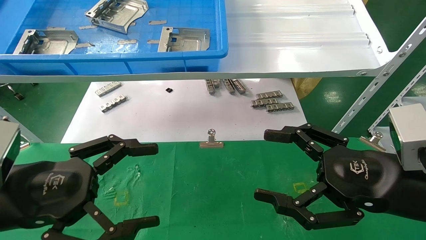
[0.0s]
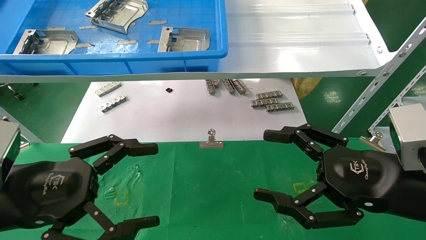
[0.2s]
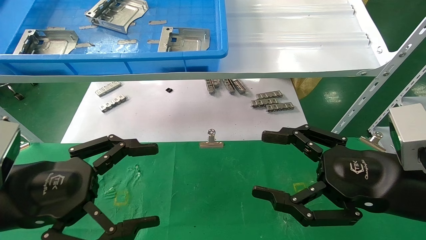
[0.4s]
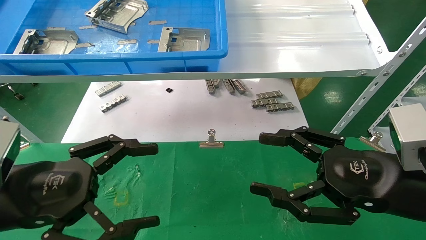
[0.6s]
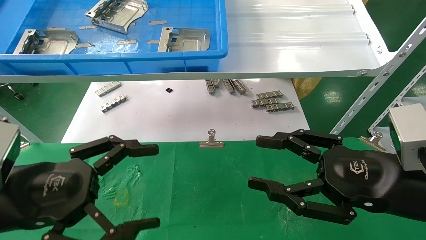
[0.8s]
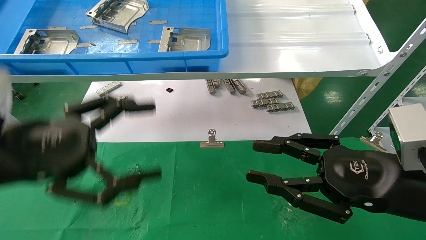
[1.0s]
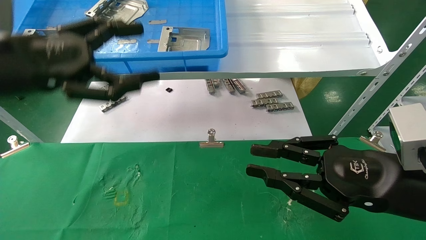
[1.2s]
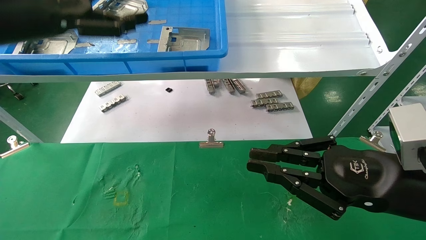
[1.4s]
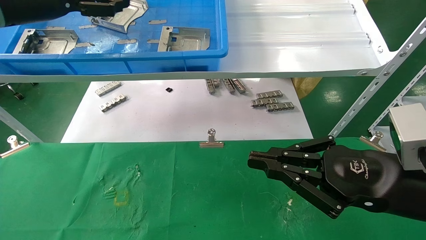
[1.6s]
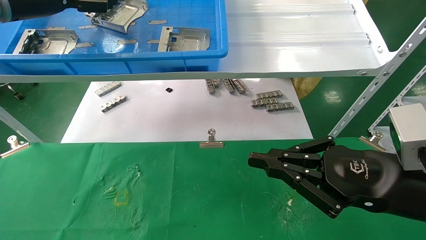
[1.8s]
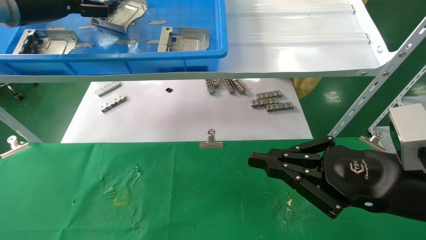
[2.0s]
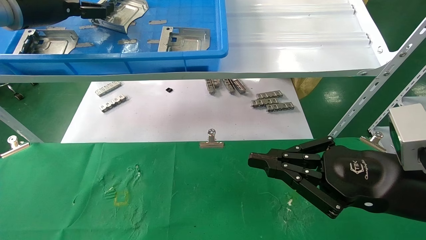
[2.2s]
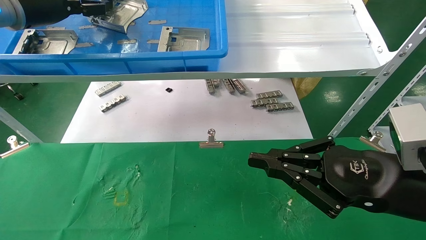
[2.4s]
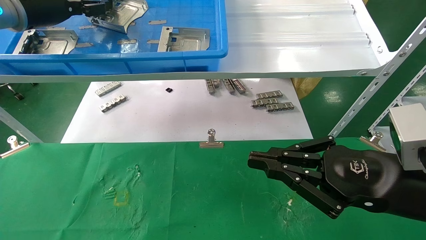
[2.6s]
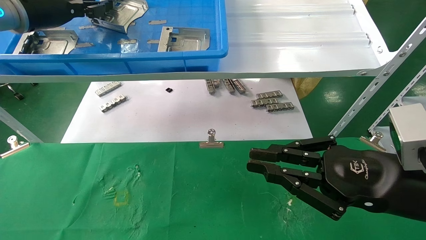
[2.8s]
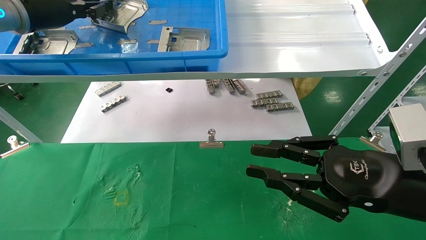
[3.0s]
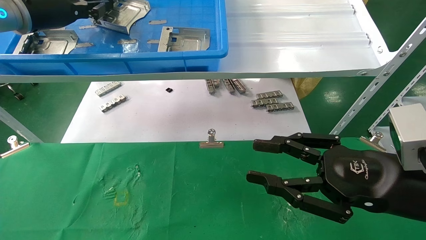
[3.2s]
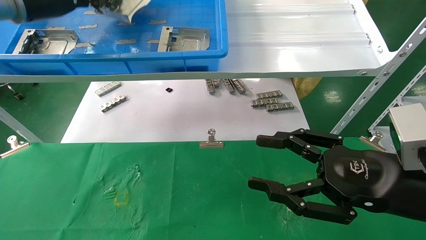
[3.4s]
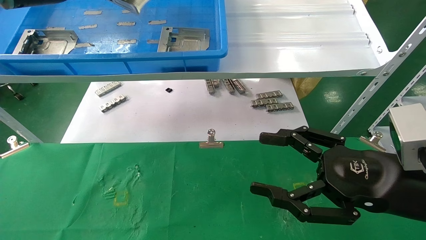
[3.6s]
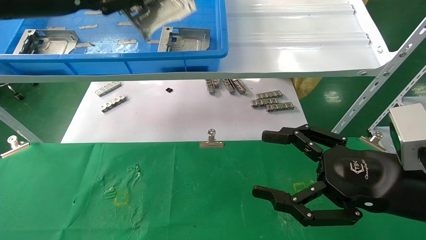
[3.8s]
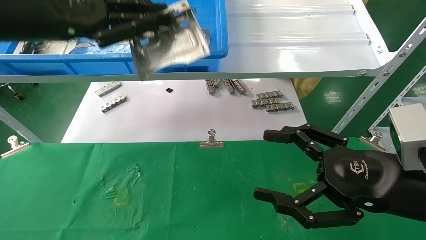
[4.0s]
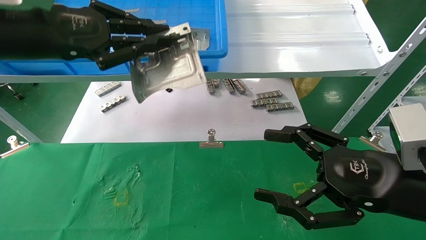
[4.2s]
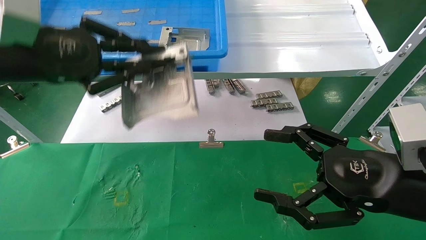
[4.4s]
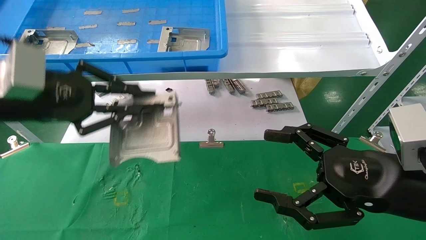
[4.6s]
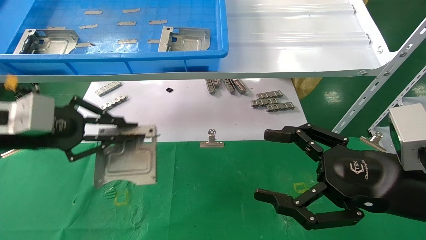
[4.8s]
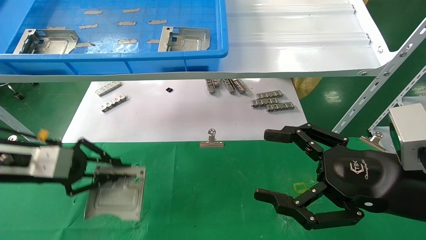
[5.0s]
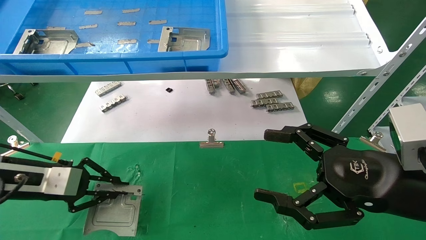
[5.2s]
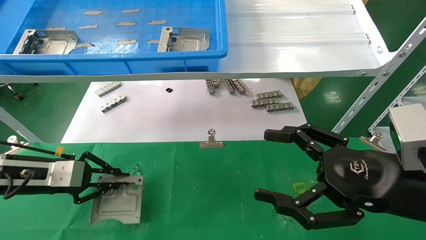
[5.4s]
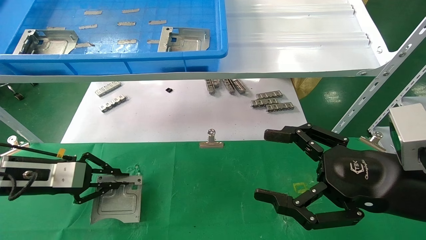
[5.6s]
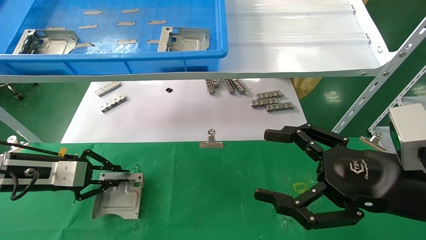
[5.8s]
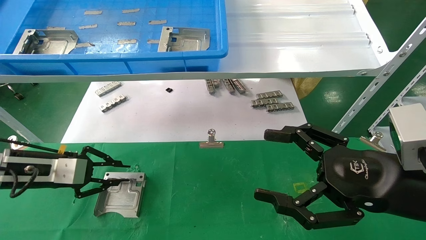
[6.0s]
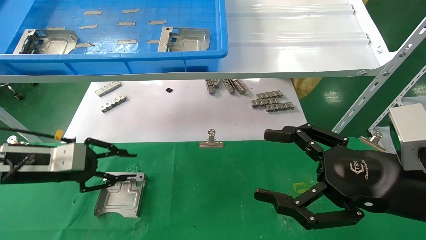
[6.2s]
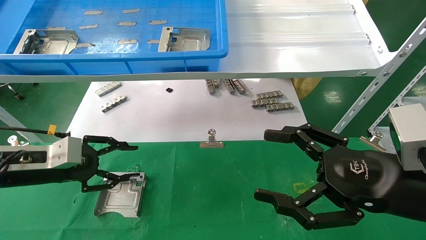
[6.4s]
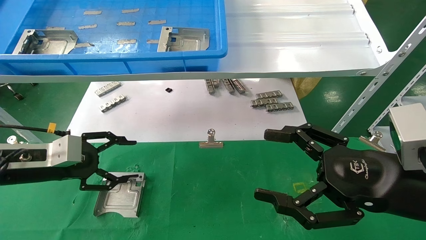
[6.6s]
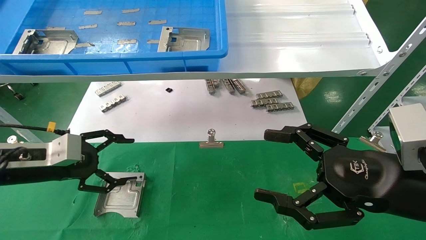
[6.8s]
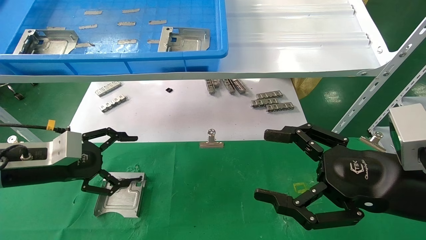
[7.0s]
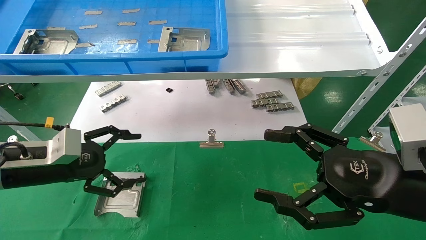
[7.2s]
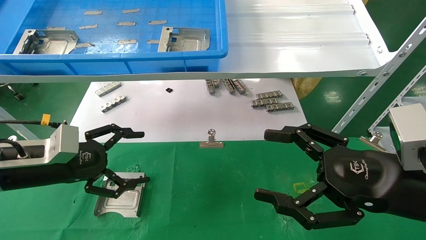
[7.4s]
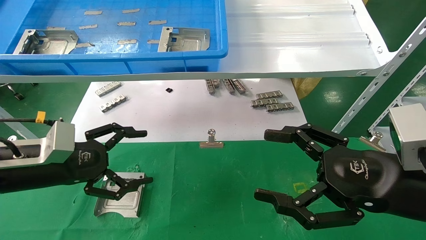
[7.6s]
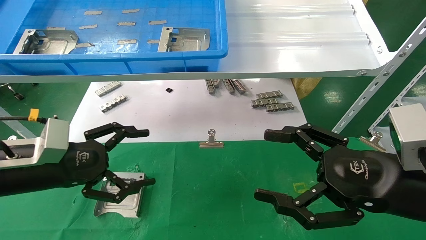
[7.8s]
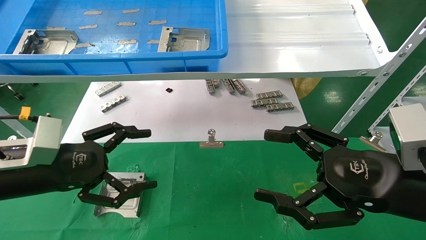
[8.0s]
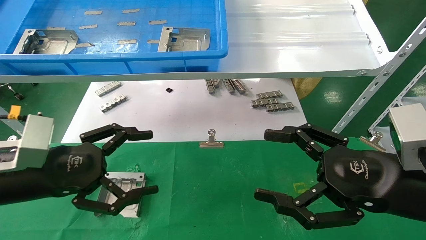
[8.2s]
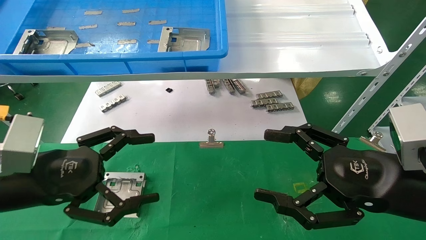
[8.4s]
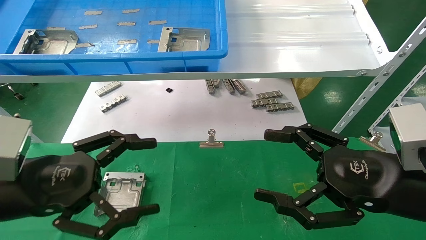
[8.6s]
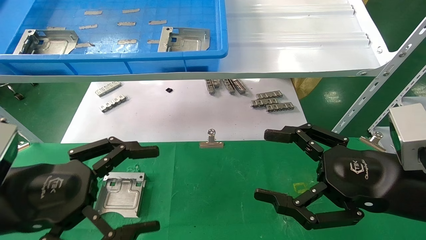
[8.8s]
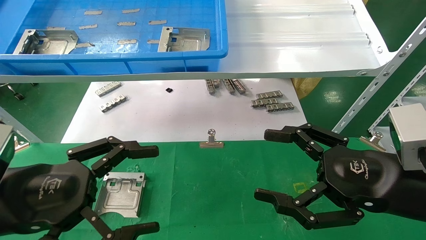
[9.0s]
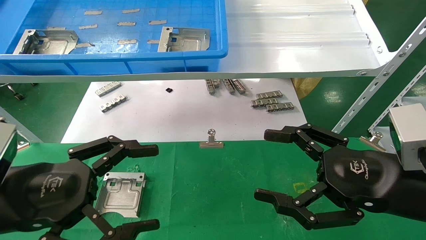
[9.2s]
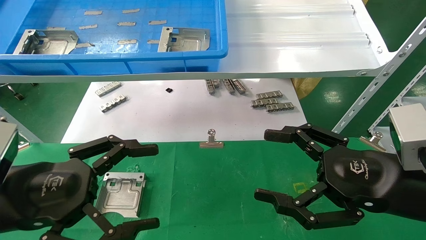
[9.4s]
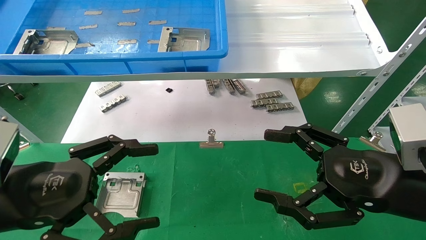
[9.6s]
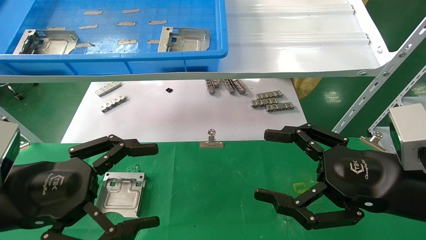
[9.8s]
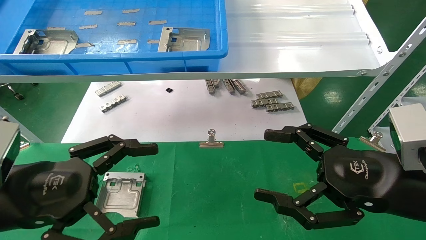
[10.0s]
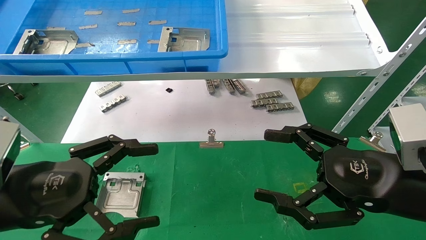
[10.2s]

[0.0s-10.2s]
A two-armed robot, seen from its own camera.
Task of the whole recording: use the mechanical arm to pick up the parts and place them on the table.
Step, 1.2s to 3.0s: Pick up the hard drive bracket from the feeding area.
Step, 3.2s to 6.0s: Place the hard drive bracket into the box.
0.0s to 1.4s: The left gripper travels upward and forward by approximately 25 cm; the right gripper closes its fingers.
1.4s to 3.0s: The left gripper goes some 10 cm forward, and closes up.
3.0s to 4.4s: The right gripper opens up; the left gripper is displaced backward and downward by approximately 15 cm.
4.4s to 5.8s: The left gripper moves downward, some 20 cm.
5.8s to 7.2s: The left gripper opens up.
7.2s to 8.8s: The left gripper shifts approximately 15 cm backward and to the right.
8.8s to 10.2s: Both grippers stay about where they are.

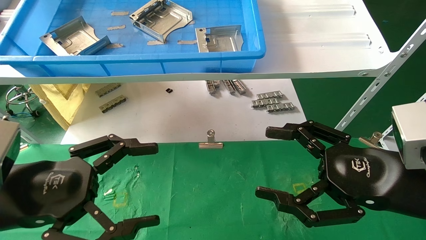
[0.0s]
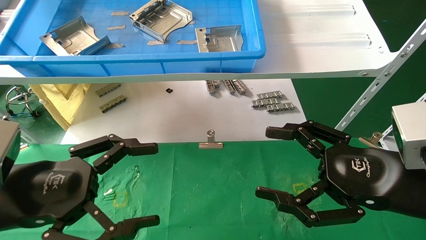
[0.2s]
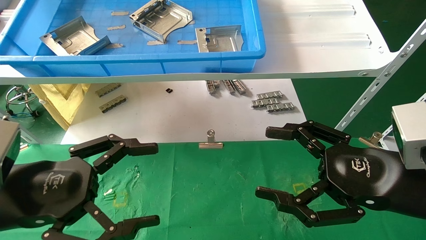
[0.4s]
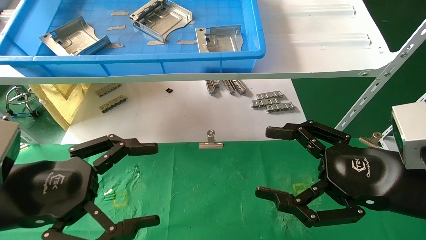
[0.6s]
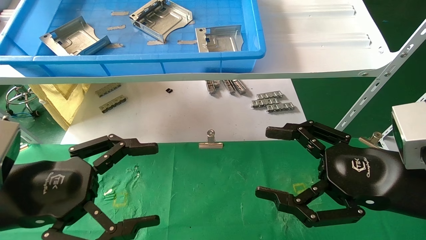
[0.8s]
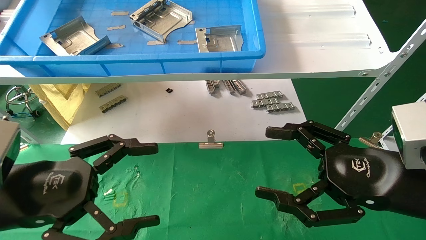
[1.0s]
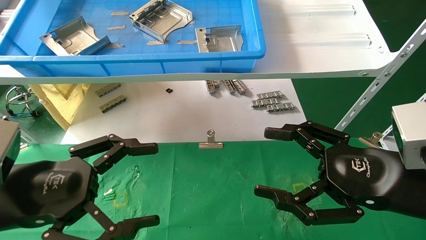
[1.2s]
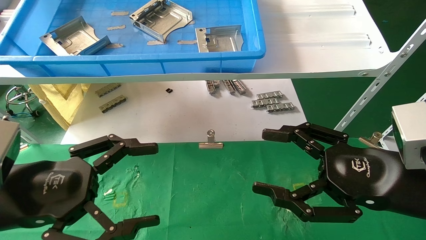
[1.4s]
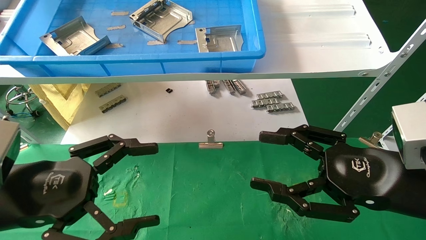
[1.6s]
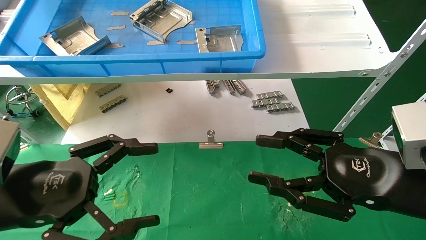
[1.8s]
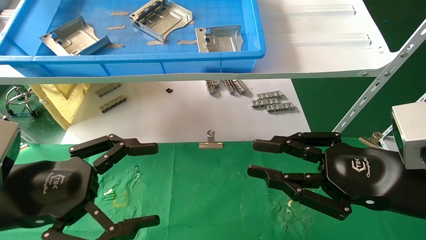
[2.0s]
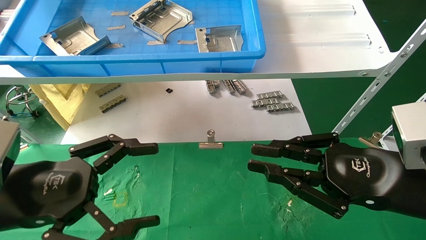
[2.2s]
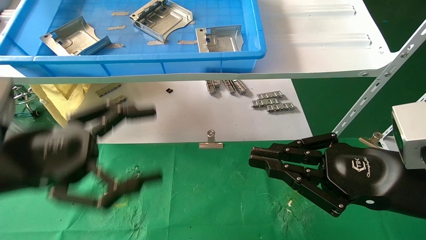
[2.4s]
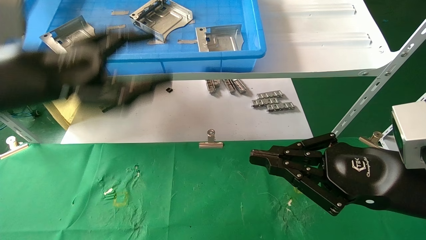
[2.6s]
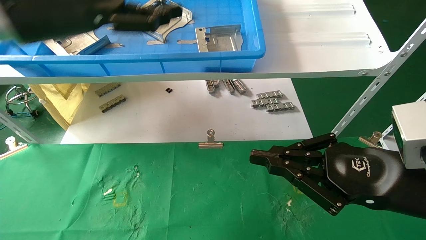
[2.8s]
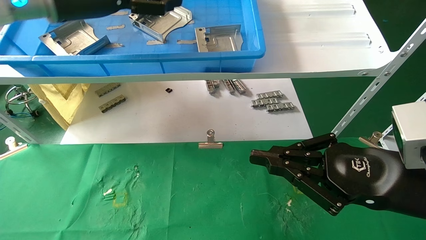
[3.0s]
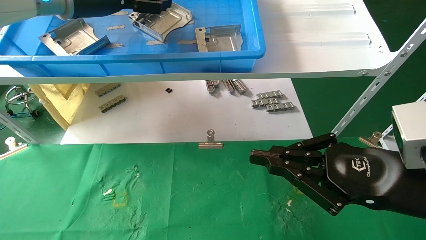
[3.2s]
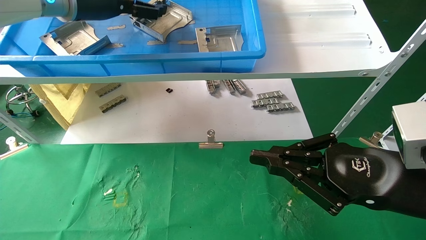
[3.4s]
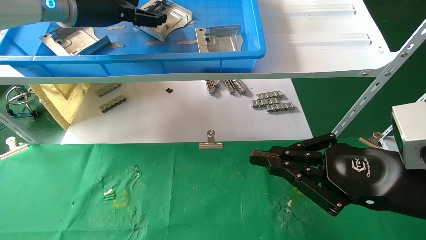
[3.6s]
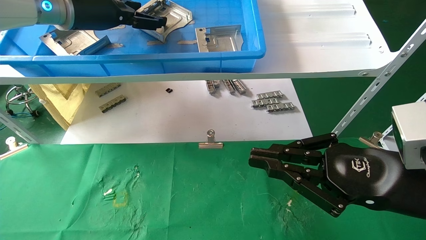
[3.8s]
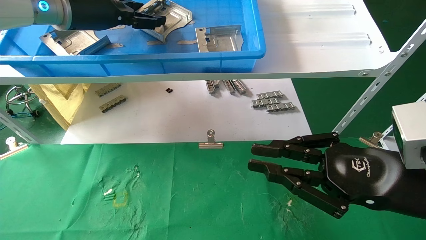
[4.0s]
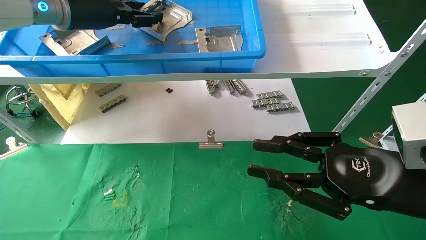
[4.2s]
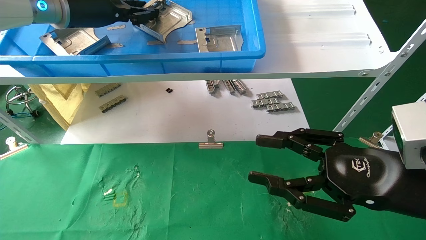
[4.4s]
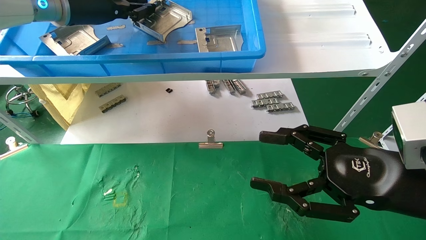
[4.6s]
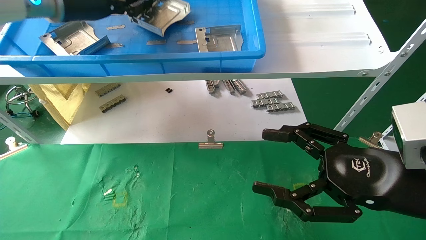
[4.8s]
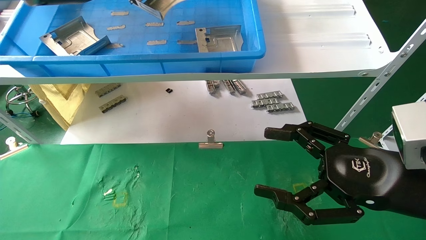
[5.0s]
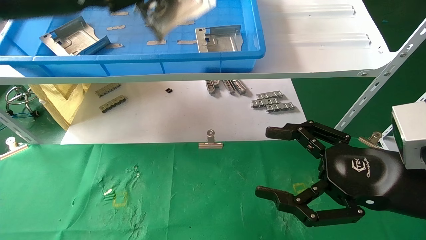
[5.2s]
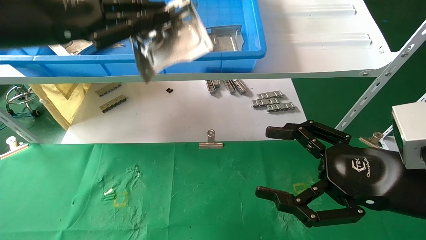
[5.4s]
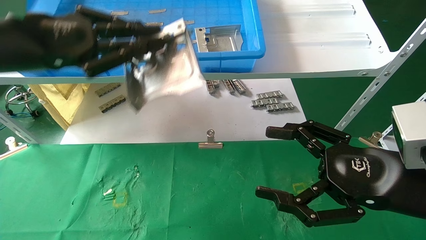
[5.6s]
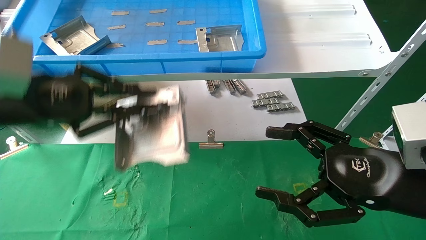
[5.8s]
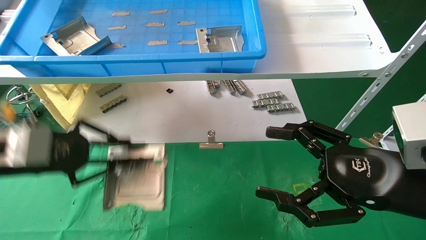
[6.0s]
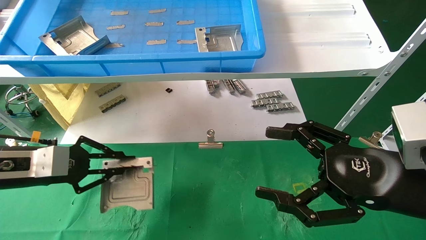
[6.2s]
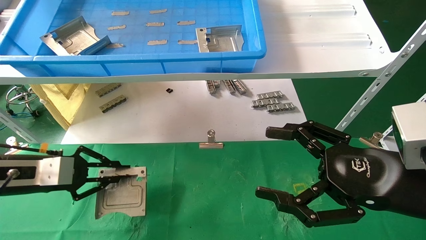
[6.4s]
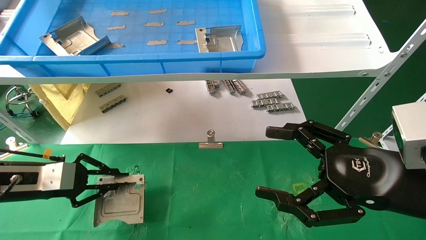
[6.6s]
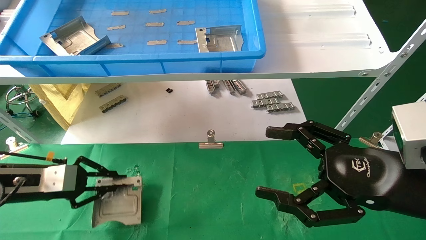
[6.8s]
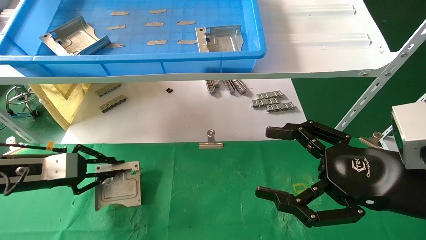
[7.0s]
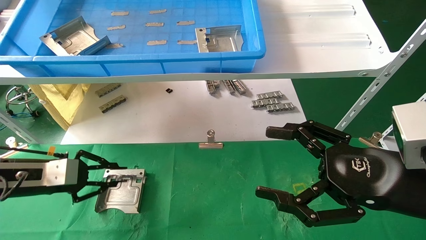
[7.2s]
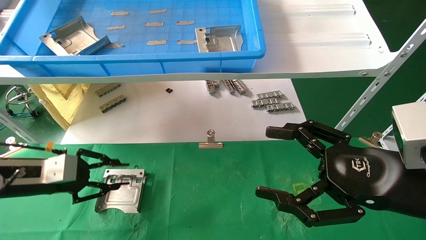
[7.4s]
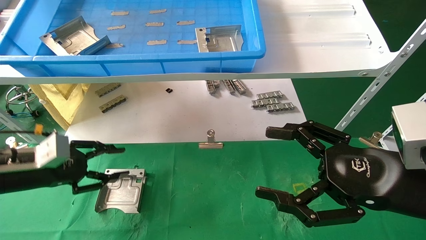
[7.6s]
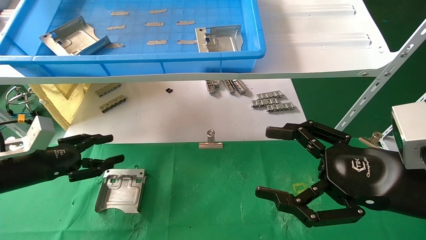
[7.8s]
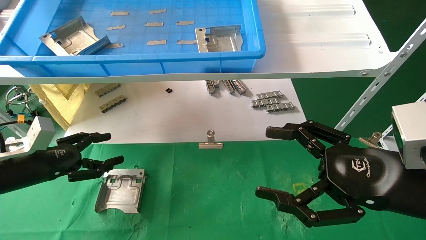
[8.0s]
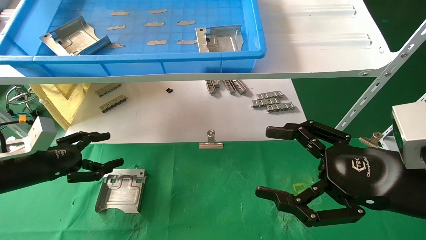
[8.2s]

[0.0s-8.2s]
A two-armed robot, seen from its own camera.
Task of the whole recording: use the mechanical arm to pick up the parts and place them on the table.
Step, 2.6s to 4.6s: Pick up the hard drive bracket from the feeding area.
Step, 4.8s to 7.6s: Place the hard drive bracket into the box.
0.0s to 1.6s: Both grippers stay put.
1.6s to 3.2s: The right gripper closes. Meanwhile the left gripper shifts roughly 30 cm upward and forward.
3.2s to 5.0s: The right gripper opens up. The left gripper closes its fingers.
5.0s to 6.6s: The left gripper heads downward, covering some 30 cm.
6.6s to 8.2s: The left gripper opens its fingers.
